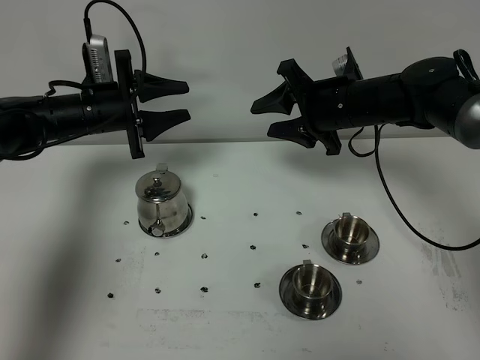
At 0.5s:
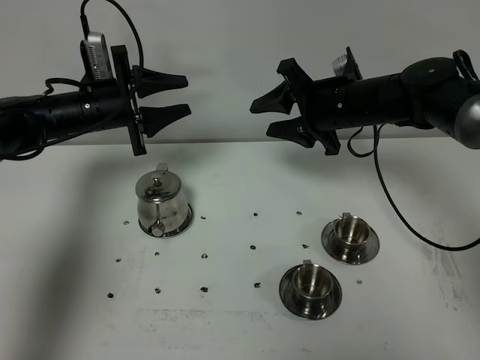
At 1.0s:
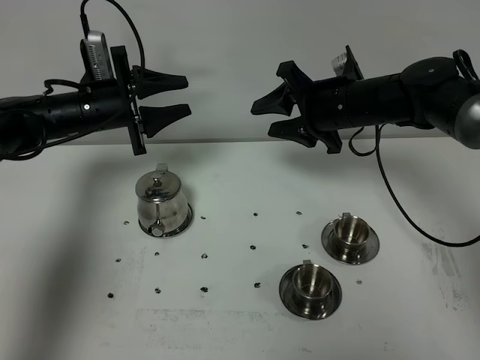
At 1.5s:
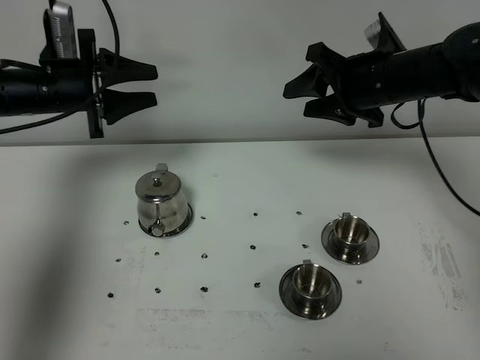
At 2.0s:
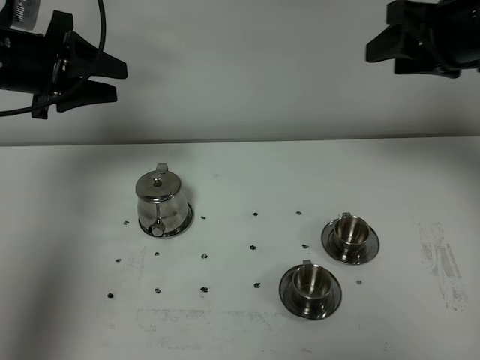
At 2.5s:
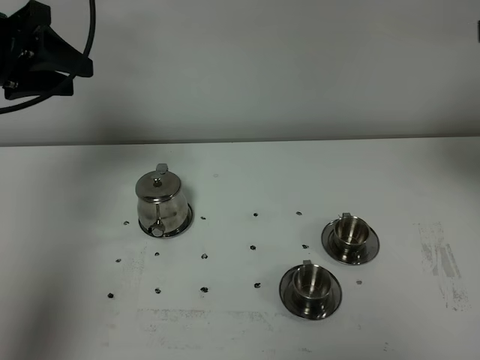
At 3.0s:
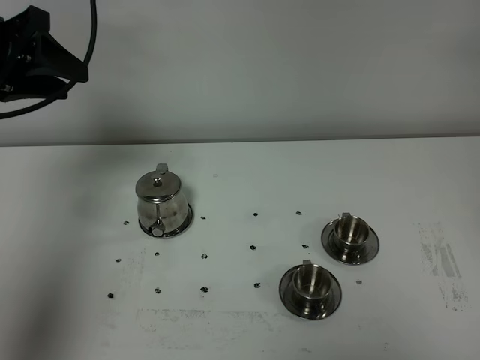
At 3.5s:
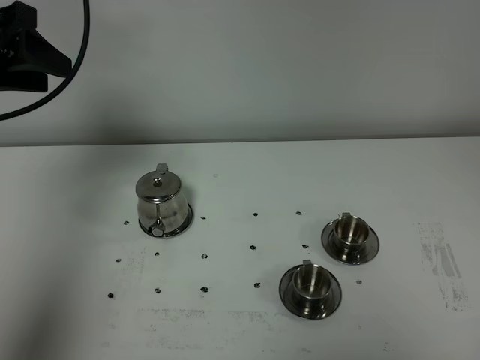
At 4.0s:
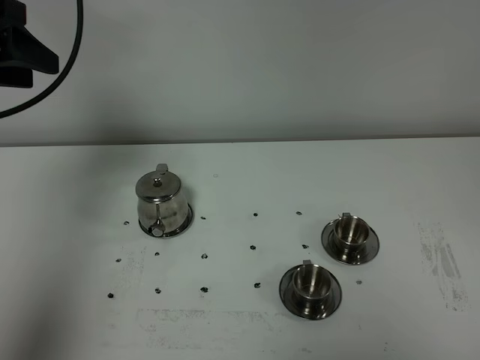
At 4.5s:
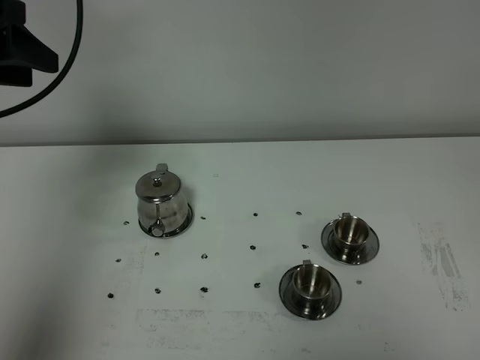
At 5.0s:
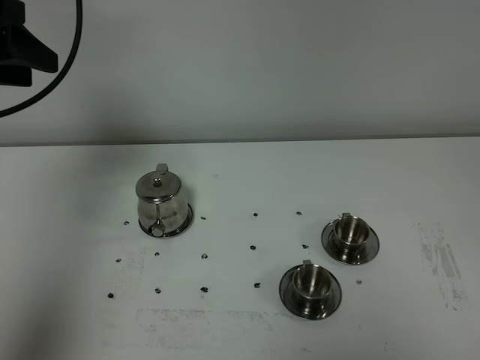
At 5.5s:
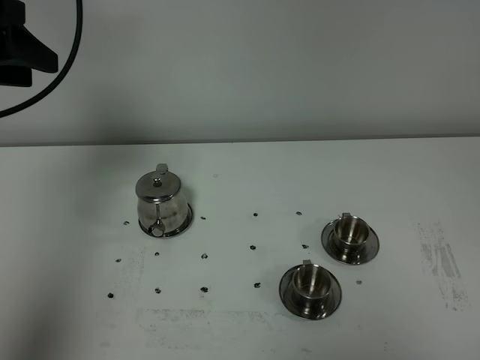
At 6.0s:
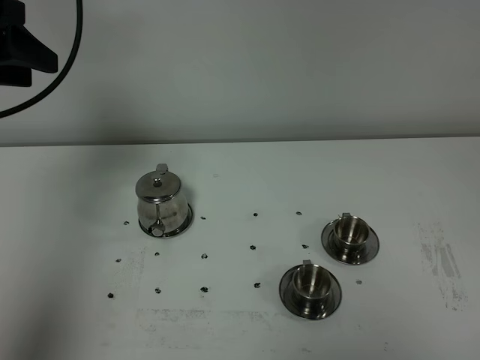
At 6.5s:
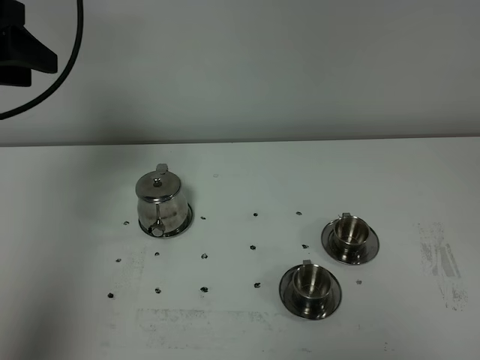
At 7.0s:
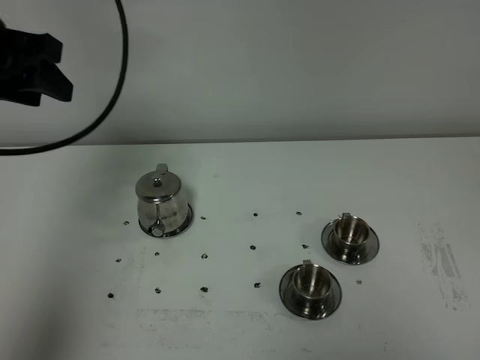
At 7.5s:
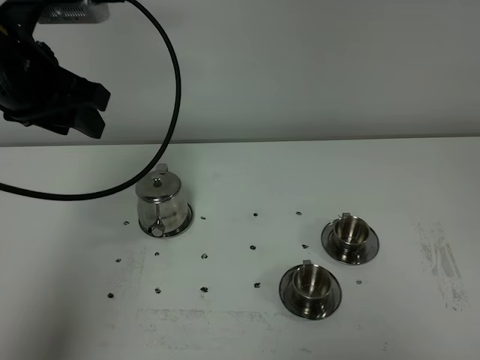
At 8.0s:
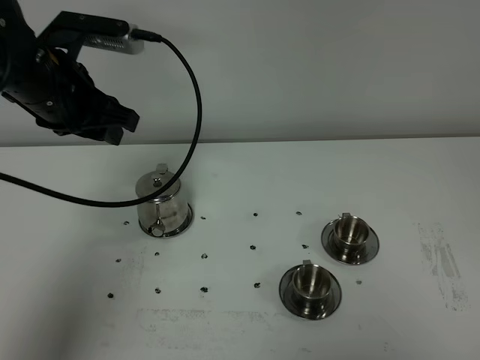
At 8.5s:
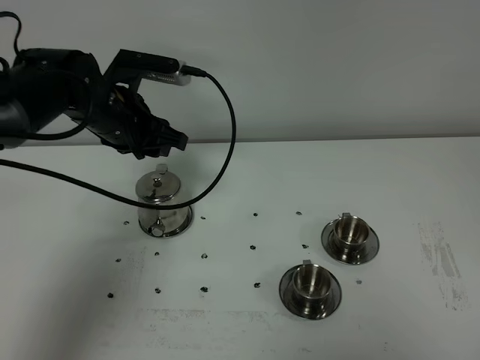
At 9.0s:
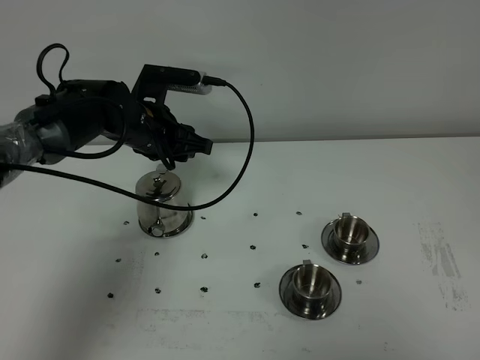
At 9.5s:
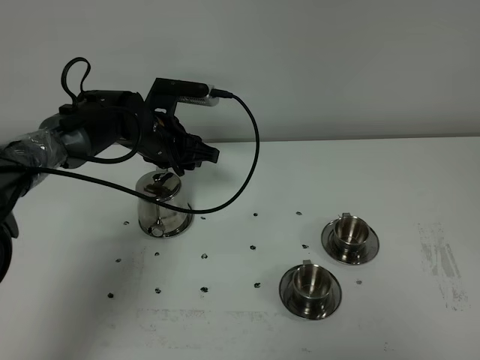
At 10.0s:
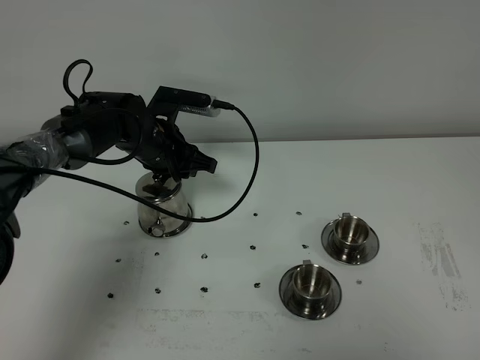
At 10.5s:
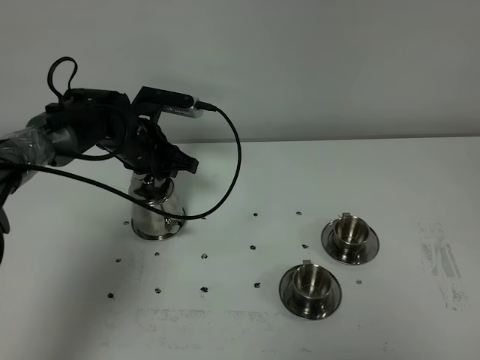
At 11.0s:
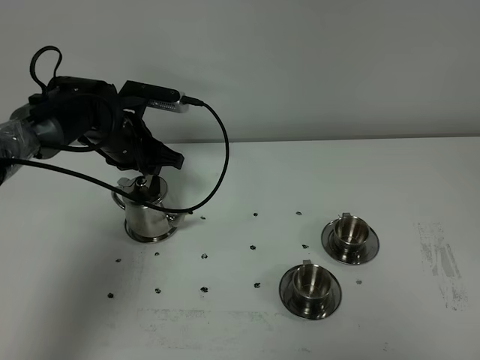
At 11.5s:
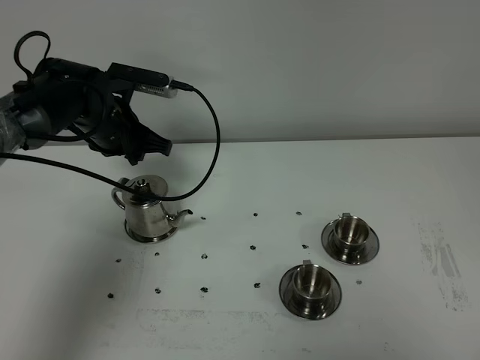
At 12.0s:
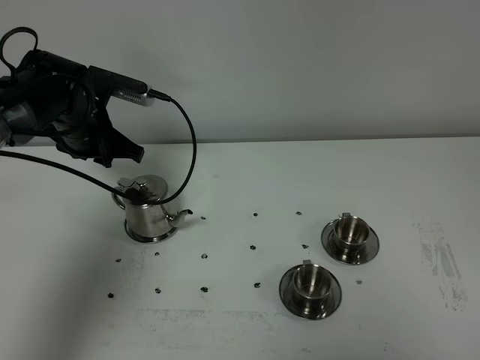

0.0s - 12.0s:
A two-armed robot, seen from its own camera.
Task of the whole recording: grasp the stainless steel teapot and pour the tea into the two stainless steel teacups one by one, put the stainless steel teapot back in its original place.
0.0s - 2.0s: The left gripper heads upward, backward and to the left, covering approximately 15 cm. Meanwhile the right gripper heads upward, to the right and backward, covering roughly 20 cm.
2.0s - 4.0s: The right gripper is displaced backward by some 40 cm; the left gripper heads upward and backward, covering roughly 10 cm.
6.0s - 8.0s: The left gripper goes some 15 cm to the right and downward.
8.0s - 10.0s: The left gripper shifts approximately 20 cm downward, forward and to the right, and closes its fingers.
10.0s - 12.0s: The left gripper is displaced to the left by approximately 10 cm.

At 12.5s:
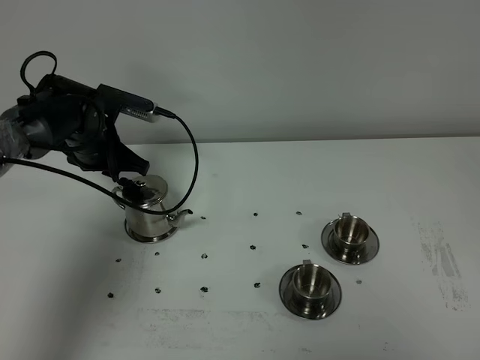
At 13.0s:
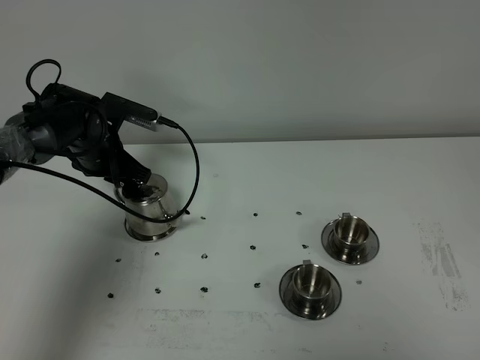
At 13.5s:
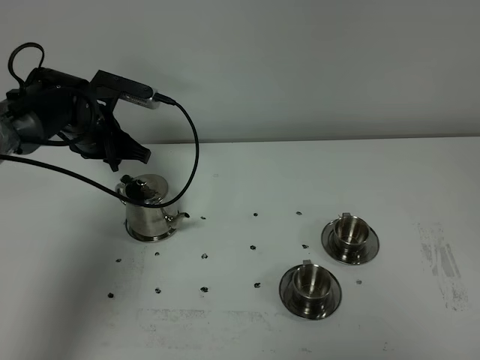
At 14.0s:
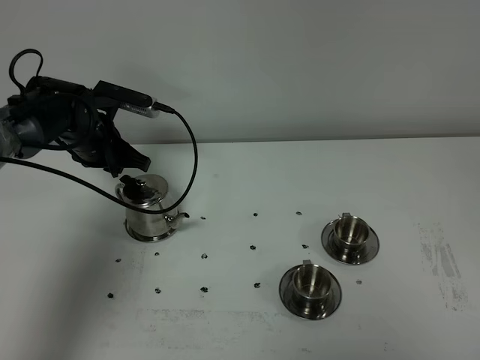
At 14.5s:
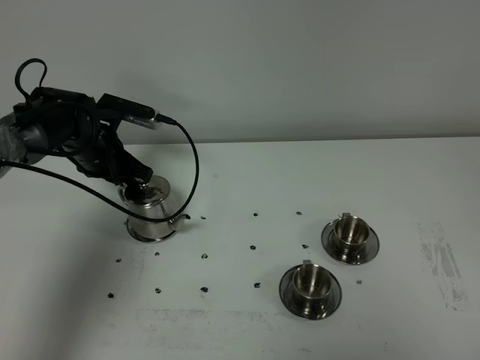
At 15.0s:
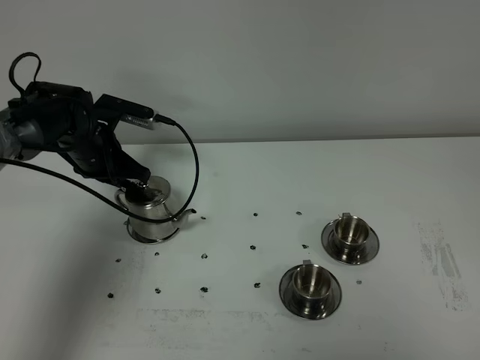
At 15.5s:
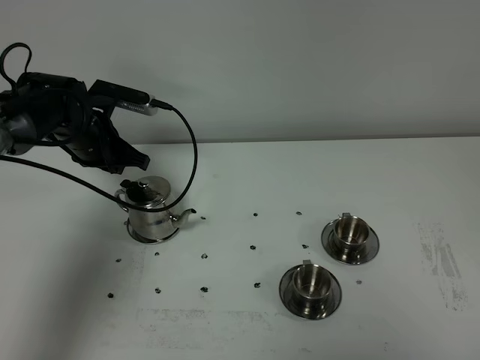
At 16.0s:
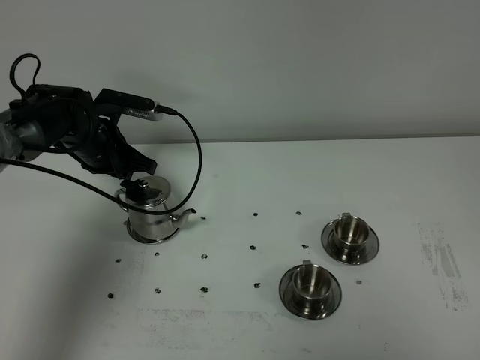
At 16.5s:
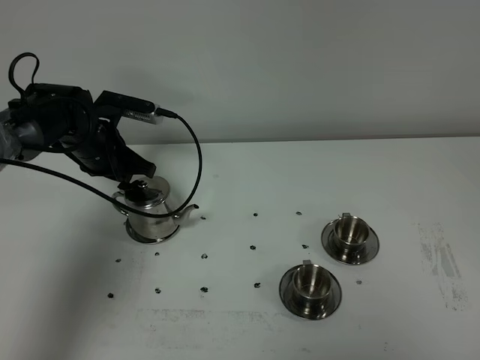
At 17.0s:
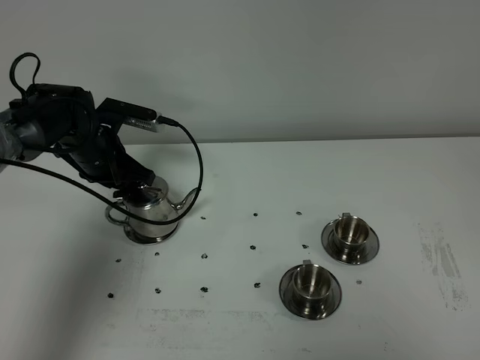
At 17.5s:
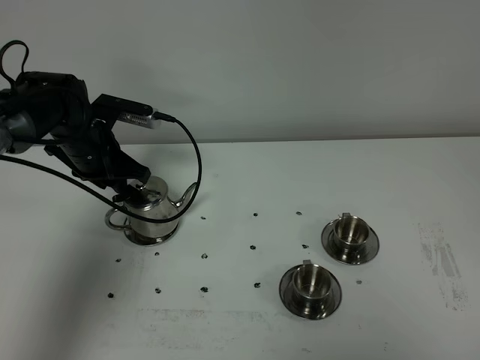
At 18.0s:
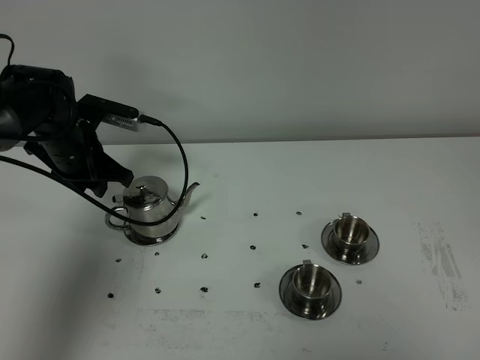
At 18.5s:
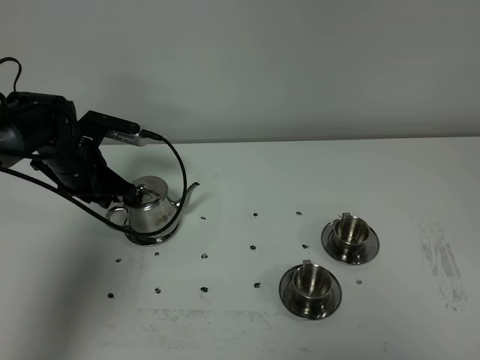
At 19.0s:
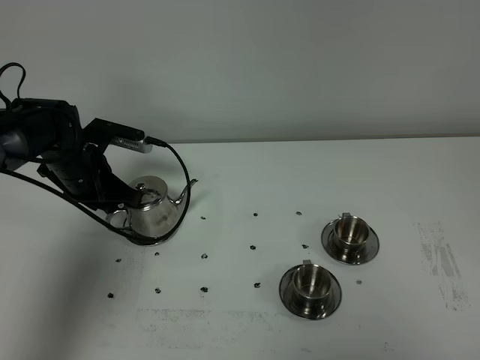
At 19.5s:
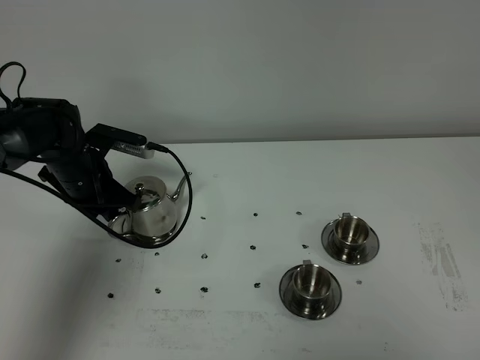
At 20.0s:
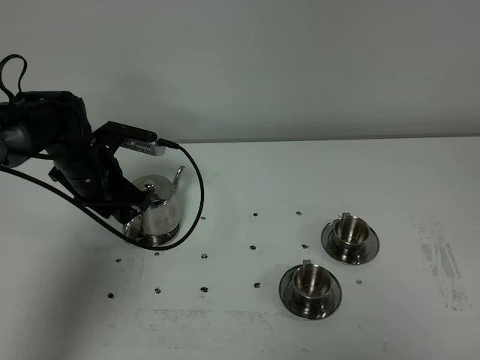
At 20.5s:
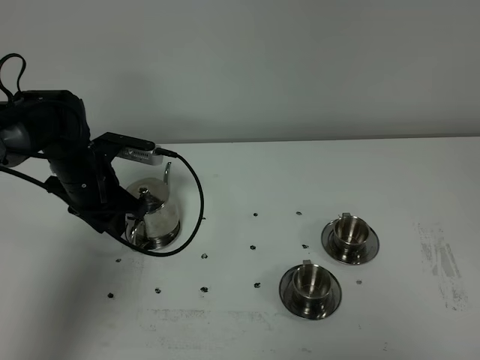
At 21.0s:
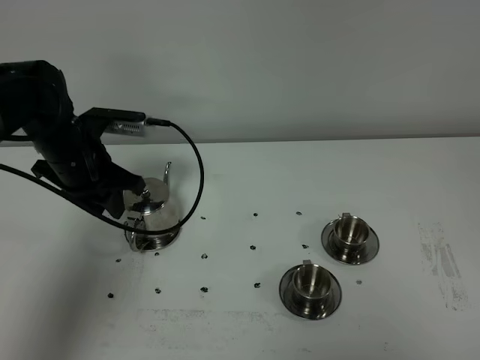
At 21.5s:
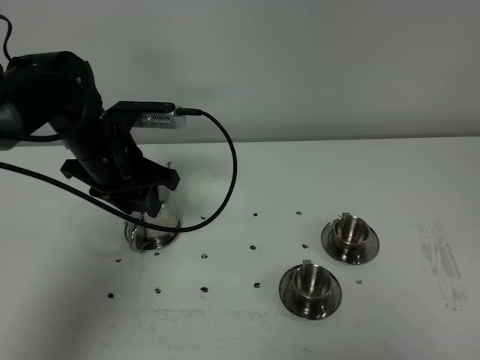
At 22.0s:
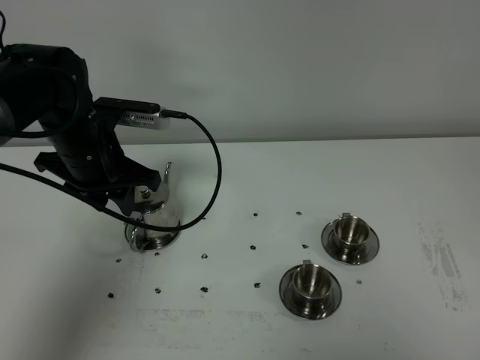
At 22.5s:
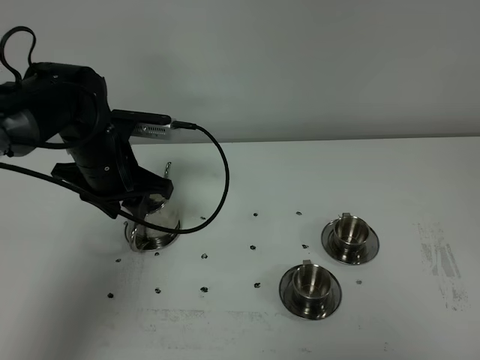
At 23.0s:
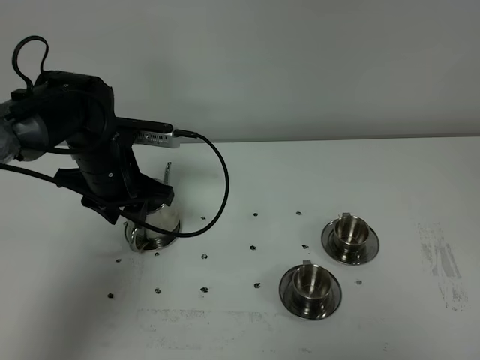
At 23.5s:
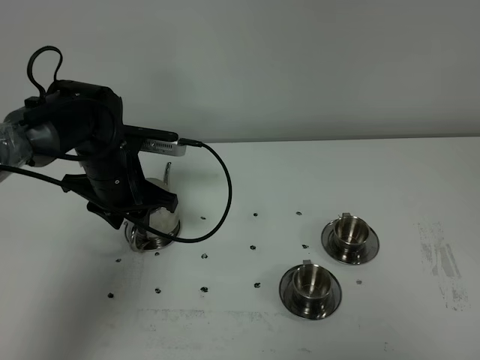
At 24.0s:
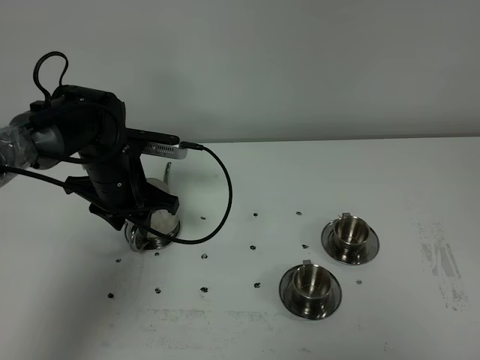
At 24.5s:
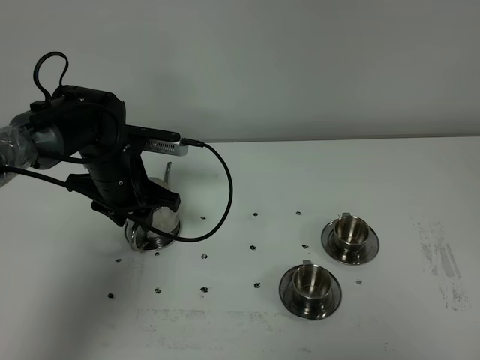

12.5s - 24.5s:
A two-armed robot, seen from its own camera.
Task of the whole recording: grasp the stainless steel teapot and pour the tea into the two stainless steel teacups one by one, put the stainless steel teapot back in its original place.
12.5s - 18.5s: The grippers stay close to where they were, moving slightly.
18.5s - 20.5s: There are only small adjustments of the grippers.
20.5s - 22.5s: The left gripper heads upward, covering some 5 cm, and opens its fingers.
22.5s - 24.5s: There are only small adjustments of the grippers.

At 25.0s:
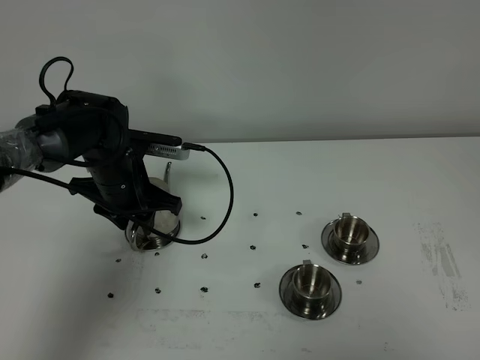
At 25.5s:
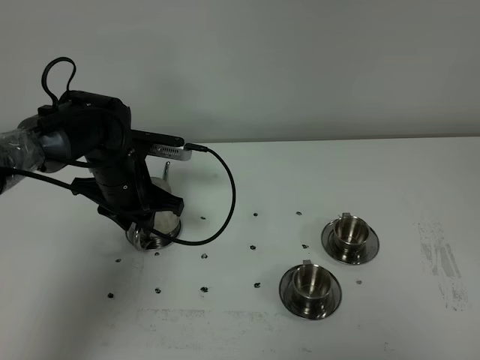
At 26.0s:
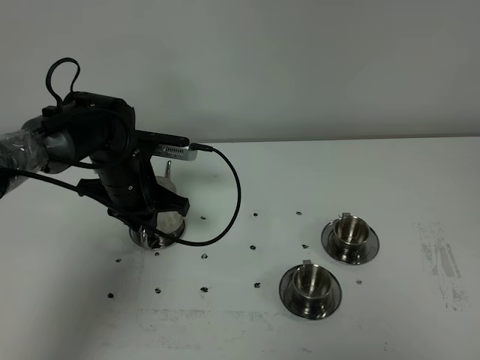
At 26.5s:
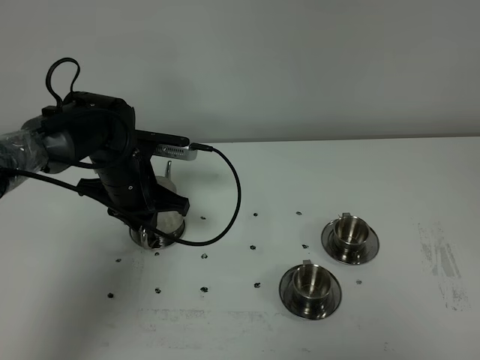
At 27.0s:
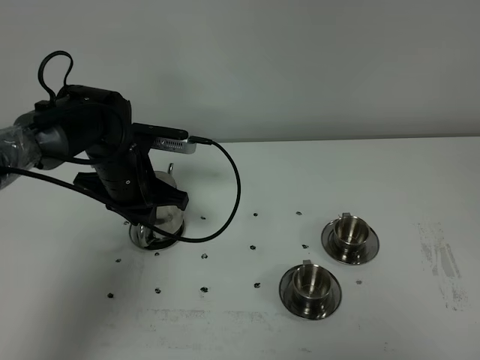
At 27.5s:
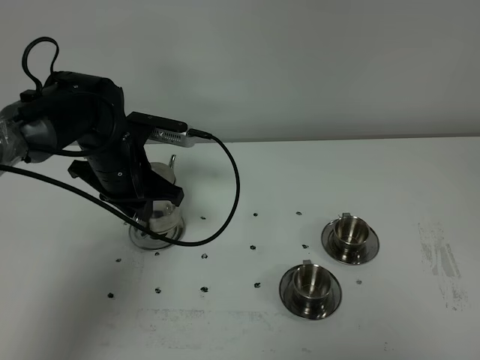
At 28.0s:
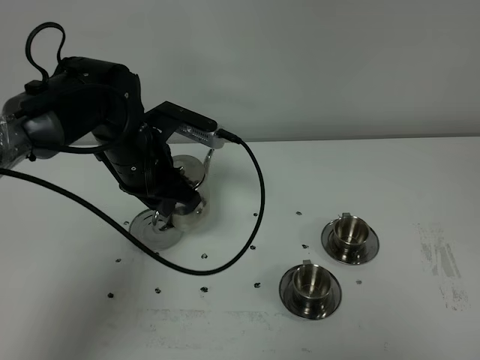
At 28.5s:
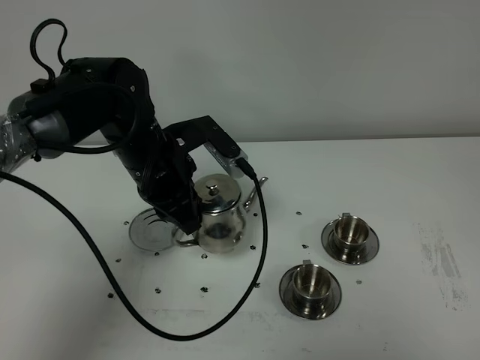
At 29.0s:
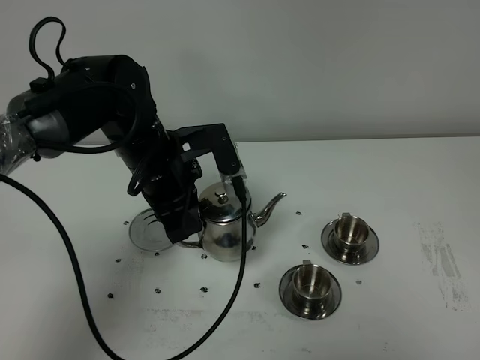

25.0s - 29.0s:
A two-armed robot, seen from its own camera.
Task of the whole recording: grasp the stainless steel teapot and pour the tea into the two stainless steel teacups one by one, put the stainless steel teapot back in its original place.
Step, 25.0s - 27.5s: Pick up the teacup with the left gripper.
25.0s - 27.0s: The left gripper closes up.
27.0s - 29.0s: The left gripper heads upward and to the right, covering roughly 10 cm.
